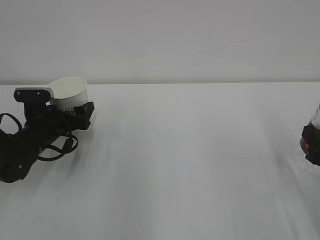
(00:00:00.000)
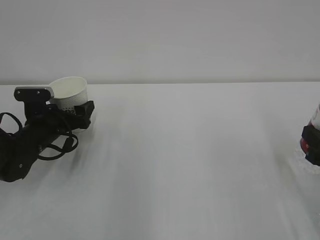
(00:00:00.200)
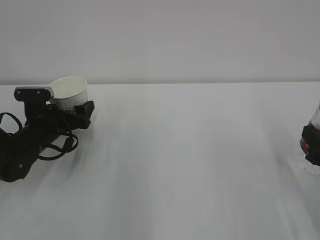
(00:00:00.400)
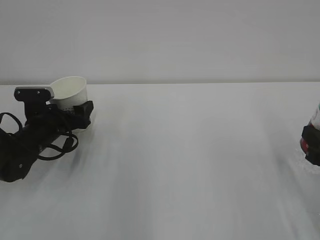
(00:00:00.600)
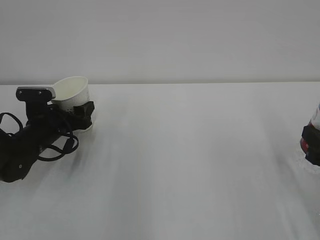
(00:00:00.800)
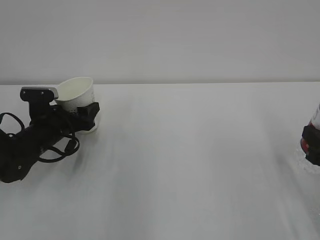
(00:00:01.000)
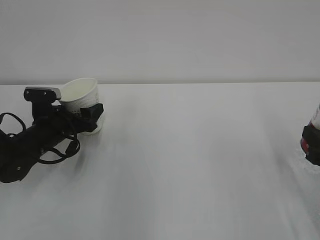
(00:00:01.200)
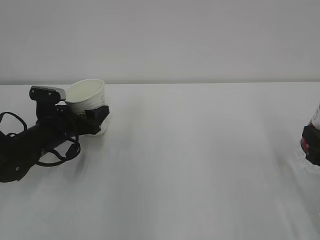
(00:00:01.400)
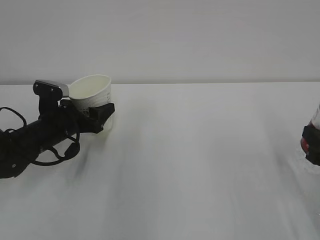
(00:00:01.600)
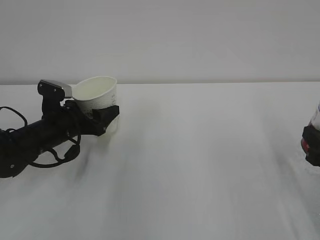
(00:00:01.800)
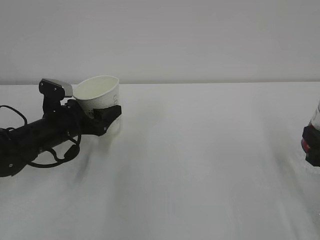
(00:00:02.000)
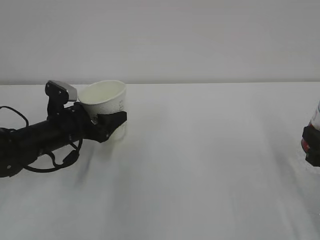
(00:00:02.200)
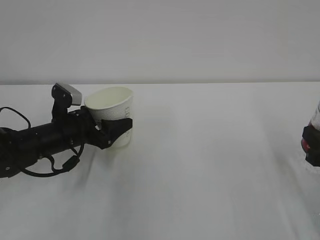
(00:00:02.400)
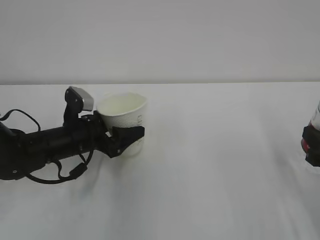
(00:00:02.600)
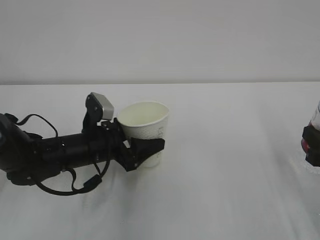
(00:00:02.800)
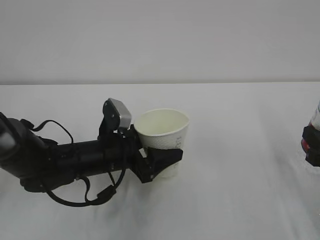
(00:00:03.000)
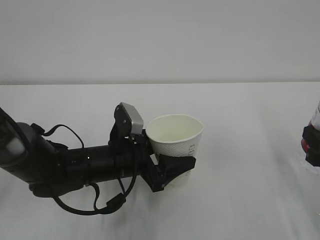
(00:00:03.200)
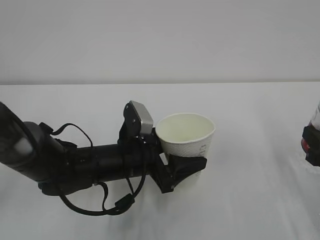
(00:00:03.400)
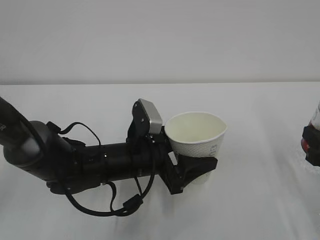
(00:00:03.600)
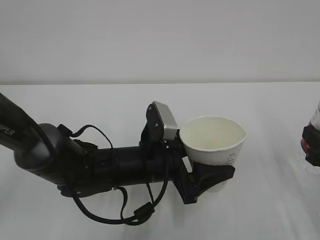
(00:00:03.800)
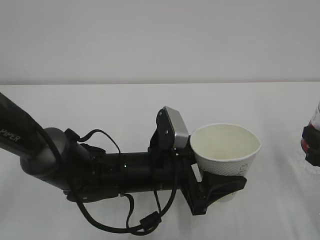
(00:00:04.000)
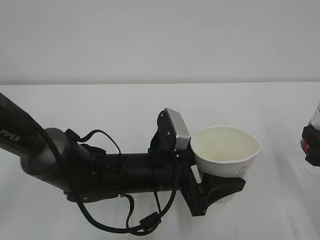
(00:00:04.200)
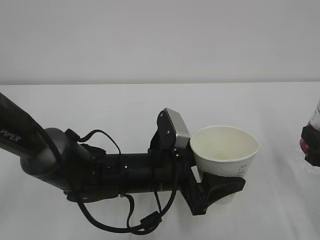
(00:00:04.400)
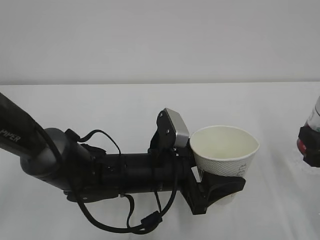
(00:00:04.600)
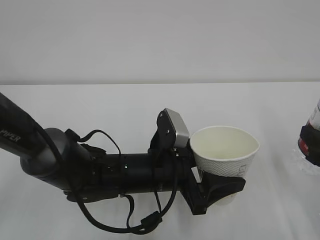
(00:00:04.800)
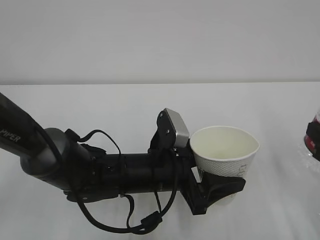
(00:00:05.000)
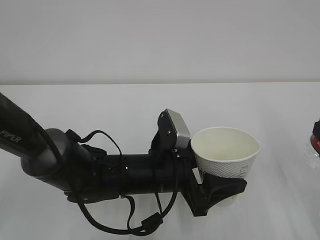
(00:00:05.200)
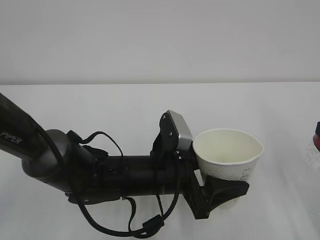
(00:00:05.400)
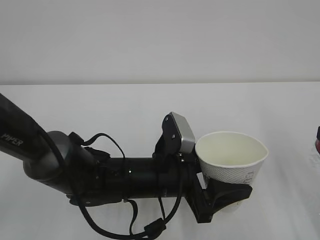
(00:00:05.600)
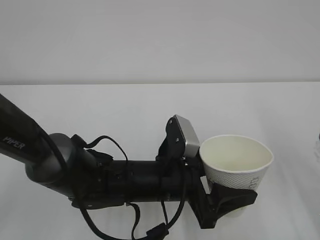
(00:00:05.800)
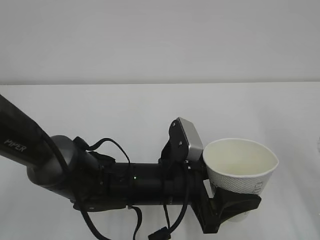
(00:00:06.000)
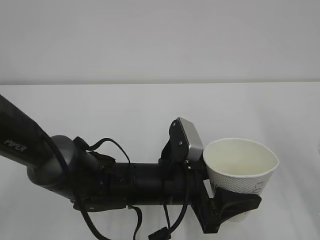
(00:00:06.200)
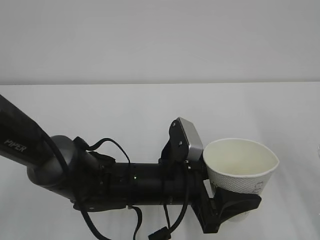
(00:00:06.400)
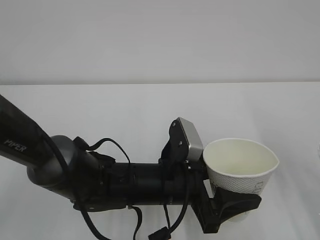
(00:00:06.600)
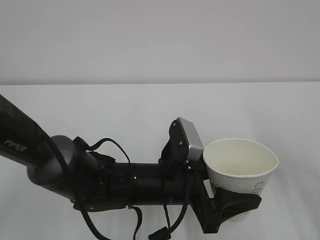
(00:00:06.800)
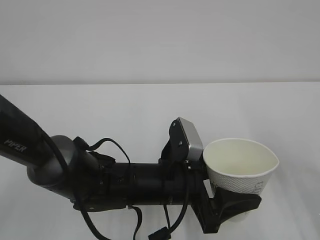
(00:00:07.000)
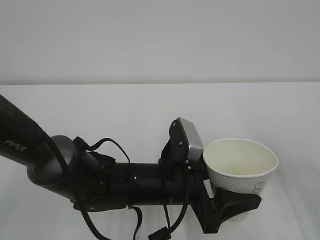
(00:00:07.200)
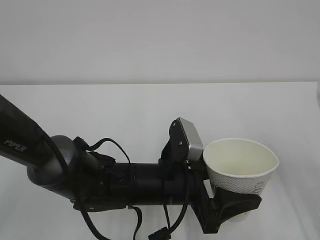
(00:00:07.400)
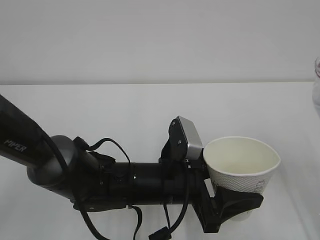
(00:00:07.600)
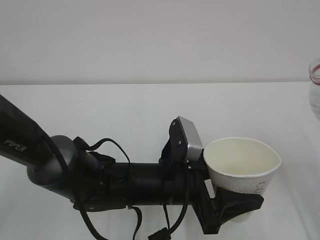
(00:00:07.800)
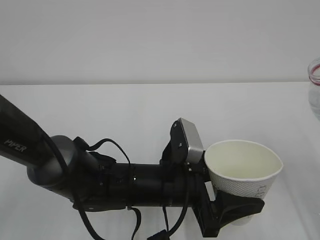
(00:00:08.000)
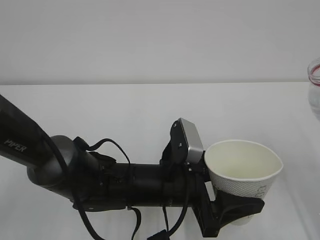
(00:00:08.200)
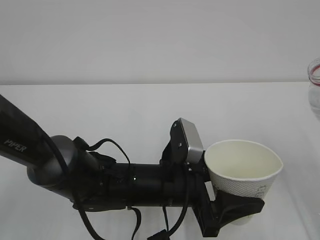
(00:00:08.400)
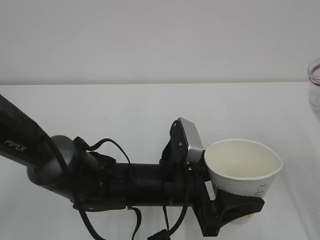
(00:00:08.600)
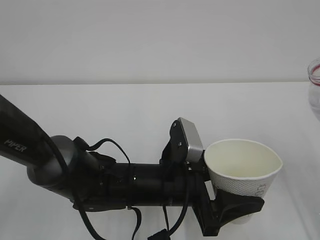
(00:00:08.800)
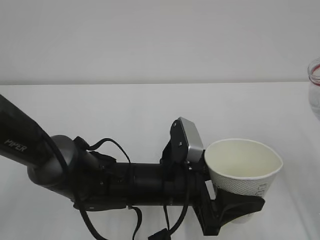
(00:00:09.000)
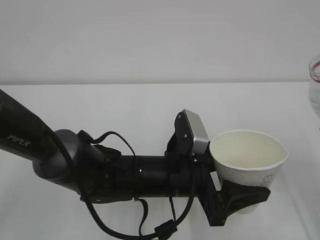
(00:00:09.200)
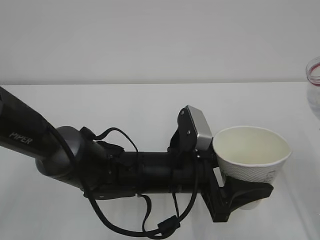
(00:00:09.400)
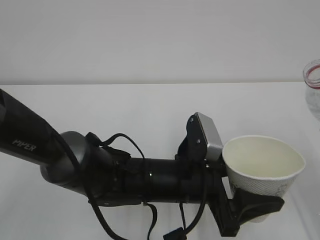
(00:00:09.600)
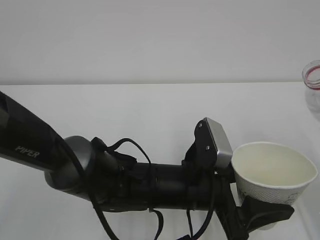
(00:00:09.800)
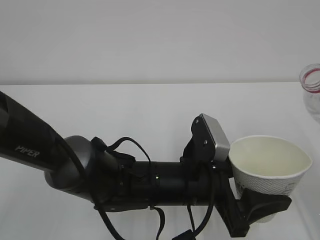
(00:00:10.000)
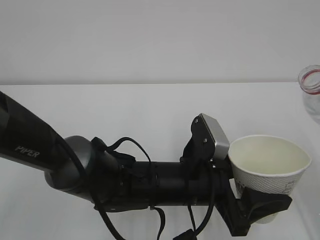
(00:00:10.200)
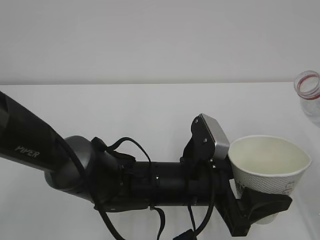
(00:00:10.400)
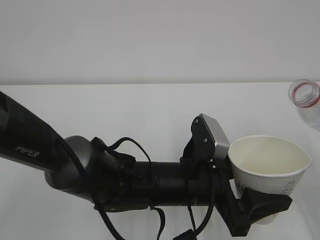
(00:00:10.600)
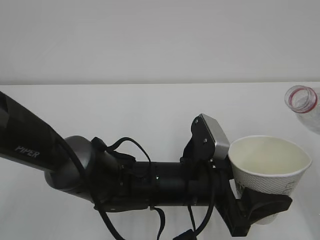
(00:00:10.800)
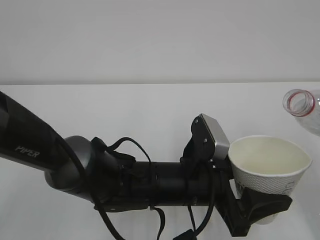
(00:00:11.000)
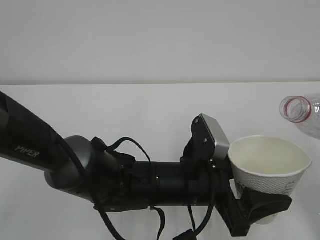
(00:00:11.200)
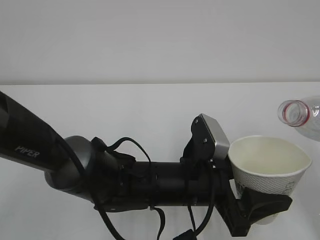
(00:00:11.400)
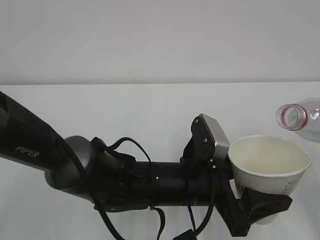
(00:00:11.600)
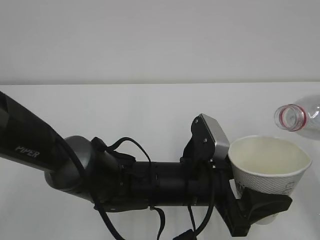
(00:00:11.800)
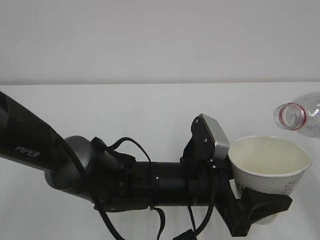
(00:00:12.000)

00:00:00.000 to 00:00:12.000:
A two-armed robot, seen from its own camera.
00:00:00.000 to 00:00:01.600: The left gripper closes up.
00:00:01.600 to 00:00:03.000: The left gripper goes about 15 cm to the right and backward.
00:00:03.000 to 00:00:04.400: The left gripper shifts about 10 cm to the right.
00:00:04.400 to 00:00:06.000: The right gripper travels upward by roughly 5 cm.
00:00:07.600 to 00:00:09.000: Both grippers stay about where they are.
00:00:09.000 to 00:00:10.400: The grippers stay close to where they were, moving slightly.

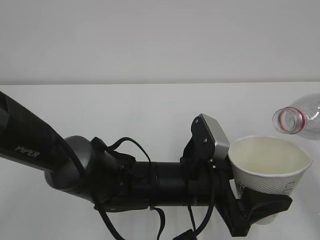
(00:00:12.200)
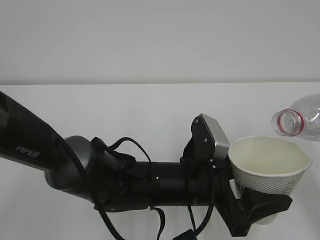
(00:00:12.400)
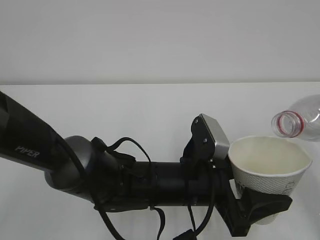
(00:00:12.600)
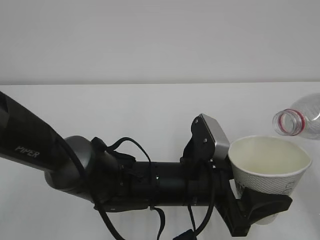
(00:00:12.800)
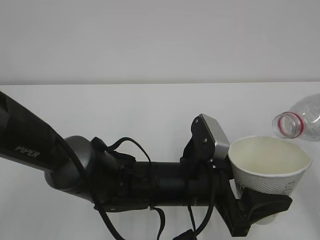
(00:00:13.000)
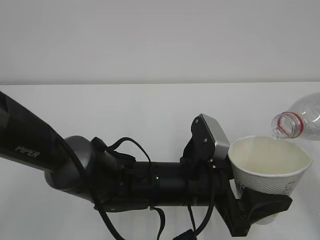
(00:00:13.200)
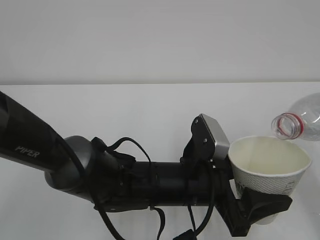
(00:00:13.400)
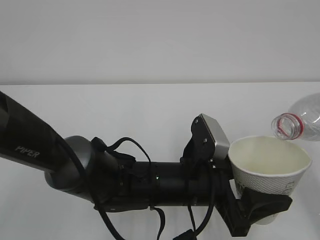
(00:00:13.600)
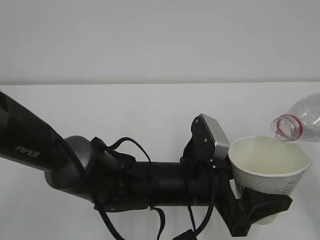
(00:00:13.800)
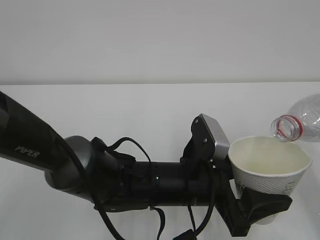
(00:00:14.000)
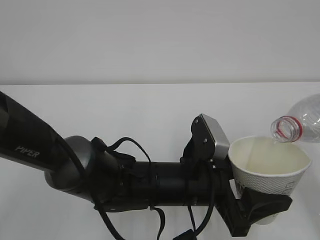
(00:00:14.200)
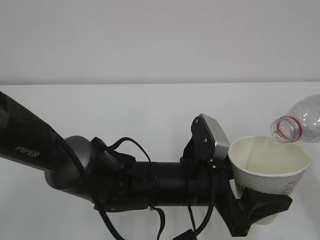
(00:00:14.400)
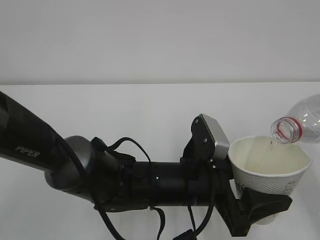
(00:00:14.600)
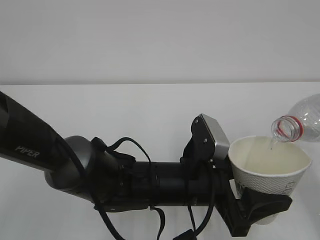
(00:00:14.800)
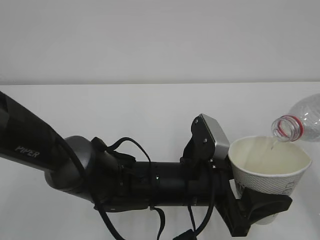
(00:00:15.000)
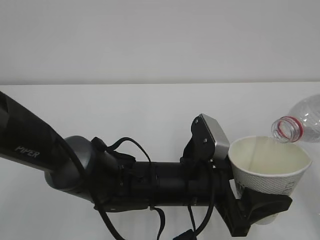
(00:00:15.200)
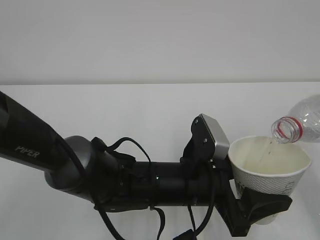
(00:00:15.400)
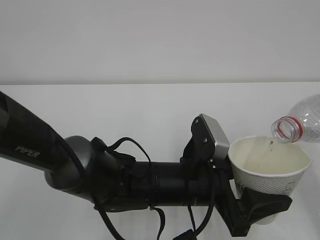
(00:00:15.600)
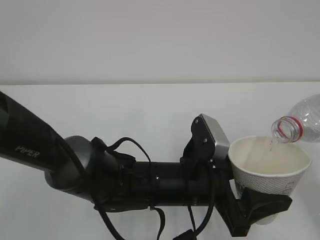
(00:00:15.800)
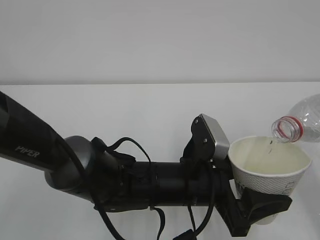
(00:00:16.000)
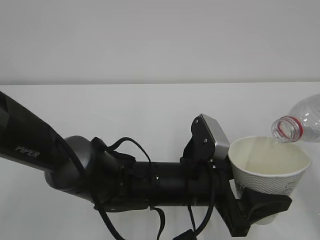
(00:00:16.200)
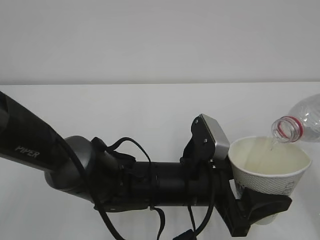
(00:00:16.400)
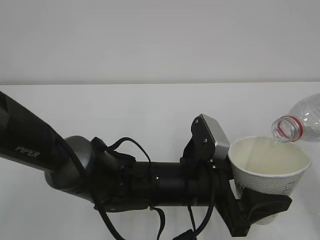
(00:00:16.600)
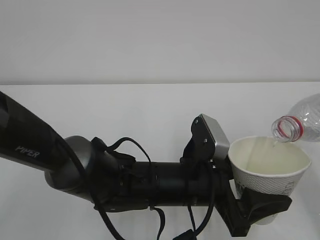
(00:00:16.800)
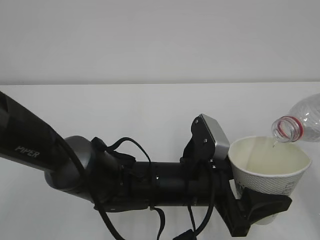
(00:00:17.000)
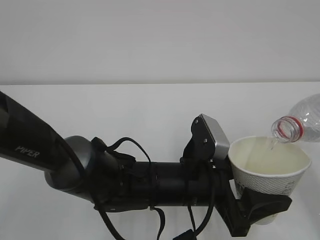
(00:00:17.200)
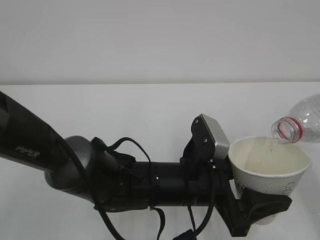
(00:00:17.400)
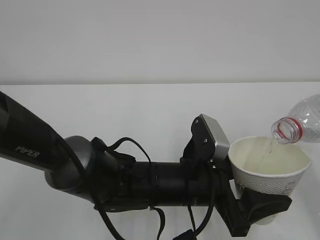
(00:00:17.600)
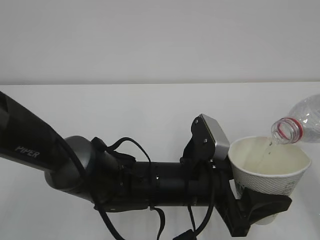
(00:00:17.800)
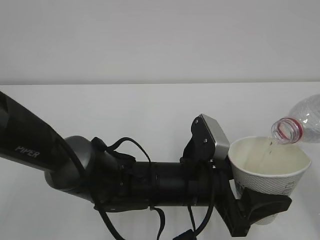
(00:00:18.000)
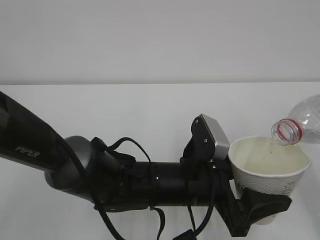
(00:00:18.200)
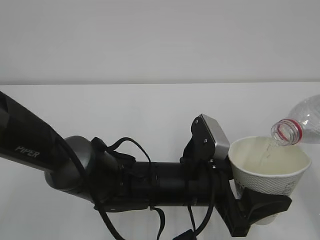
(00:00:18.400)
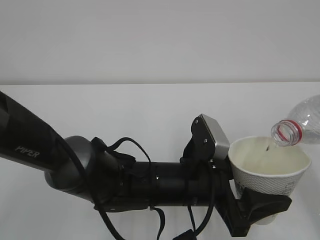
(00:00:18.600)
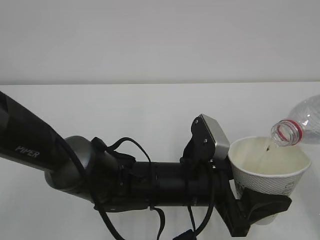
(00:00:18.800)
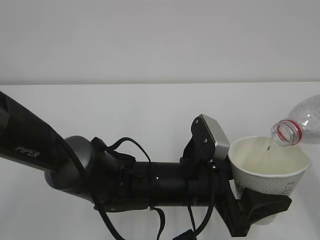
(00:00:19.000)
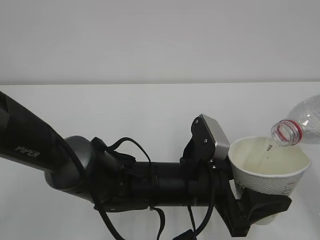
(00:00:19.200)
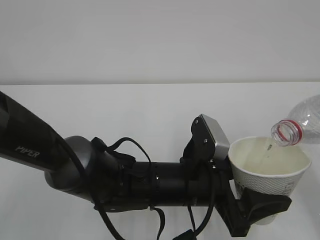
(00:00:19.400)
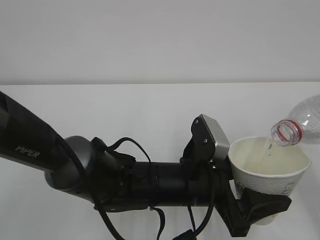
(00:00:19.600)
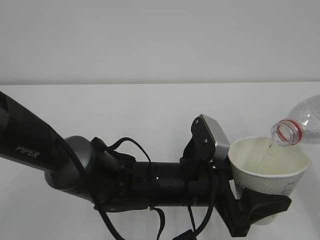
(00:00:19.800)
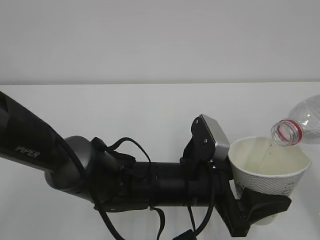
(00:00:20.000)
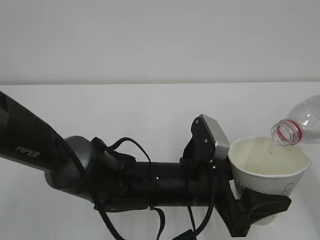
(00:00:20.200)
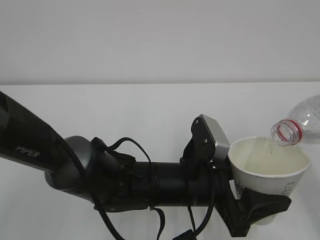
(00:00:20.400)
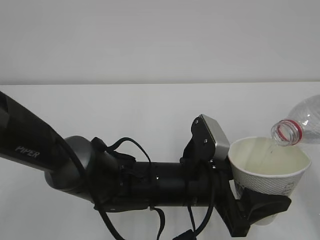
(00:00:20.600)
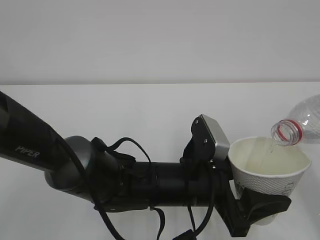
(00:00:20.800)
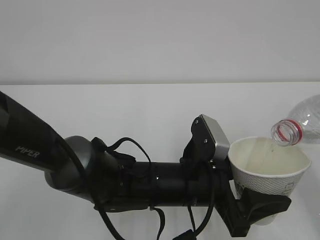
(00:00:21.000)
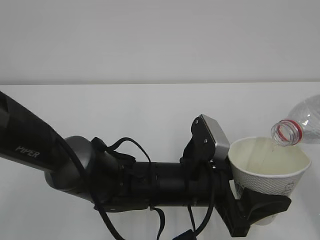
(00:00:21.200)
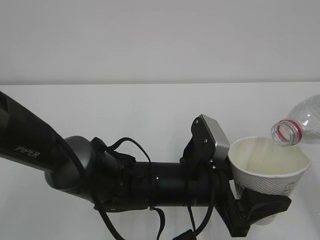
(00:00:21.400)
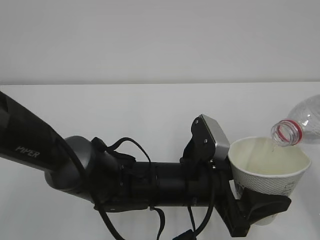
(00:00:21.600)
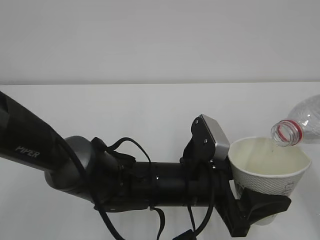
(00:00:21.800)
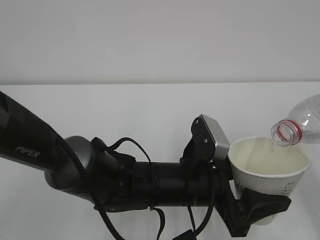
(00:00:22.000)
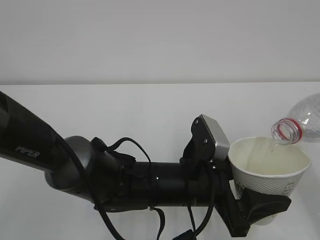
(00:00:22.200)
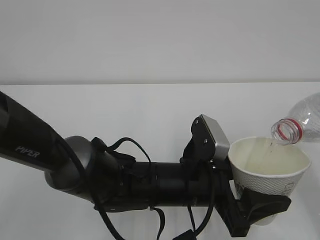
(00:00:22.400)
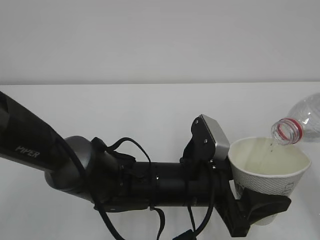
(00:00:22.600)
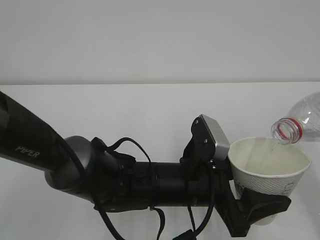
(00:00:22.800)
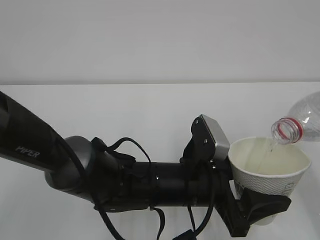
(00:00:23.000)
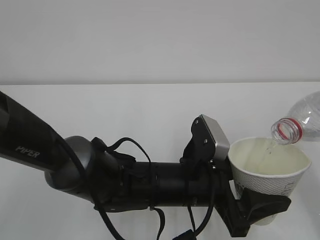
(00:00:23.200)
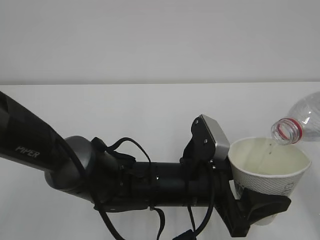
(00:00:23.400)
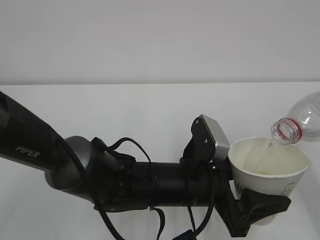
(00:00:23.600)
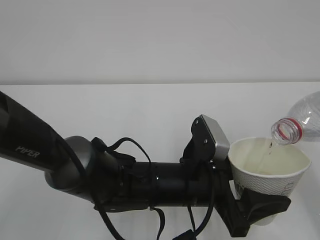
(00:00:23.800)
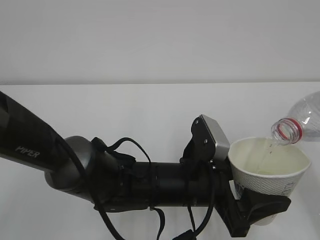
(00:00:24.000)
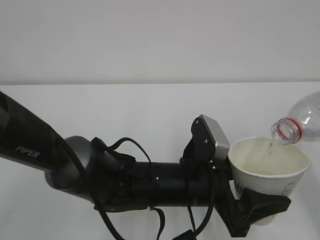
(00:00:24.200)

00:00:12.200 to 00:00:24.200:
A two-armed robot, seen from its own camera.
00:00:13.800 to 00:00:21.200: Both grippers stay about where they are.
00:00:21.200 to 00:00:24.200: The two grippers keep their place.
